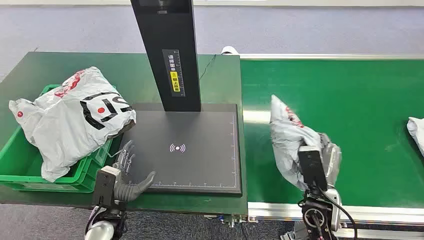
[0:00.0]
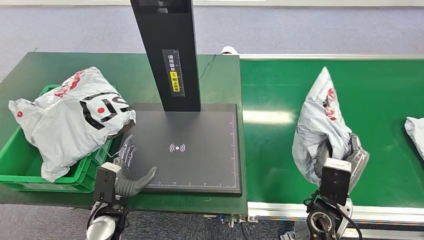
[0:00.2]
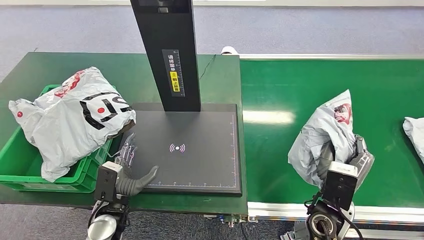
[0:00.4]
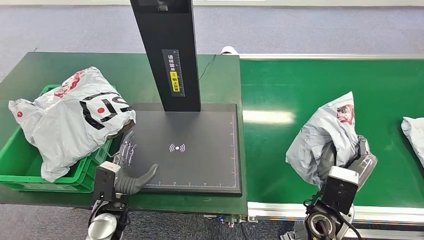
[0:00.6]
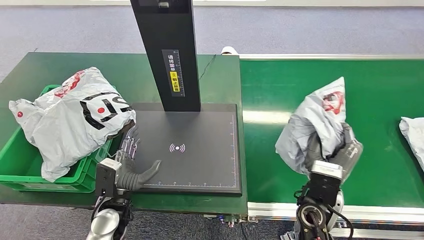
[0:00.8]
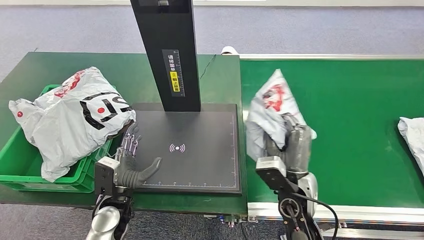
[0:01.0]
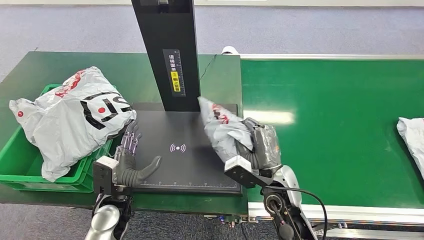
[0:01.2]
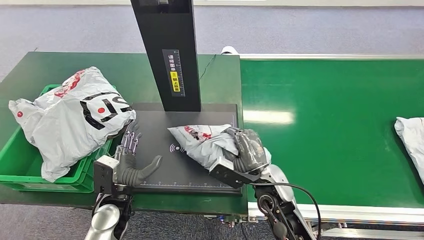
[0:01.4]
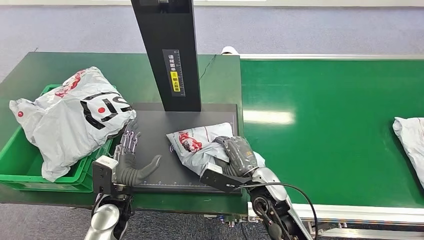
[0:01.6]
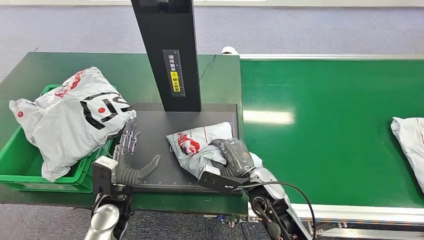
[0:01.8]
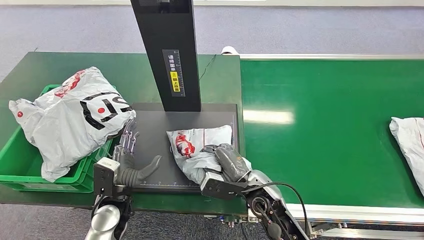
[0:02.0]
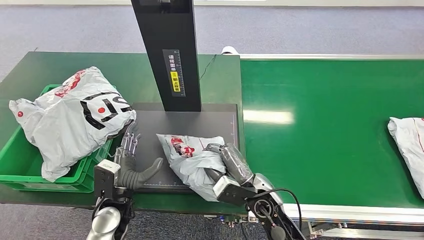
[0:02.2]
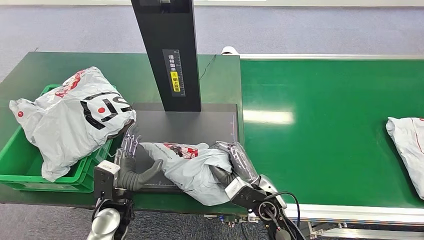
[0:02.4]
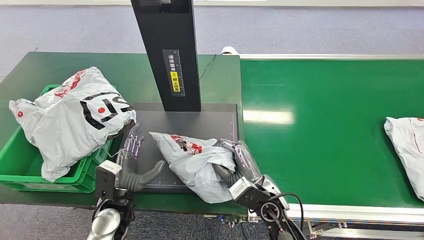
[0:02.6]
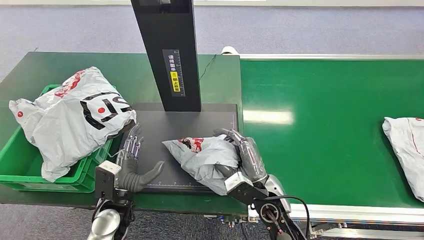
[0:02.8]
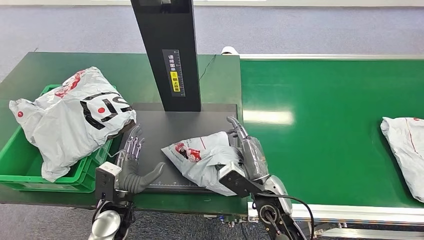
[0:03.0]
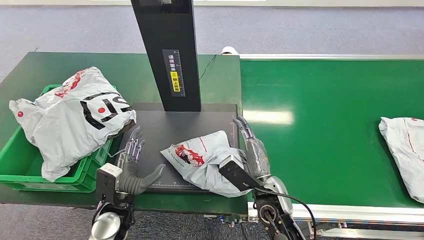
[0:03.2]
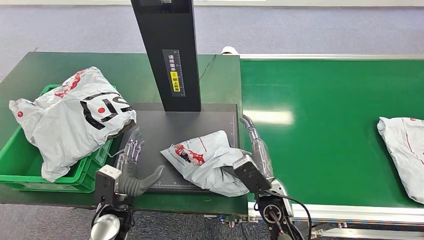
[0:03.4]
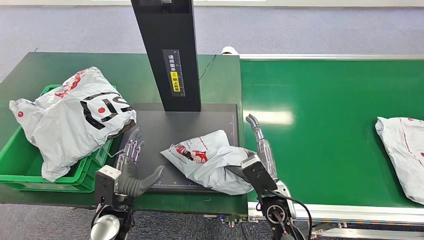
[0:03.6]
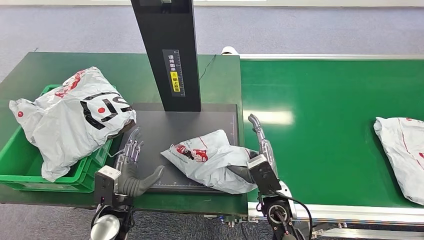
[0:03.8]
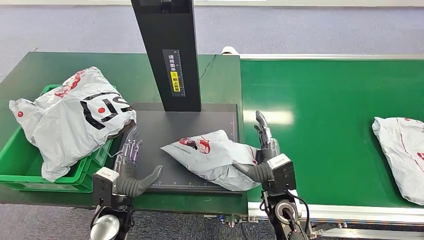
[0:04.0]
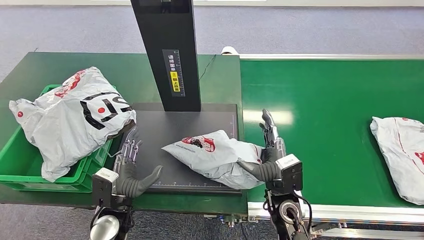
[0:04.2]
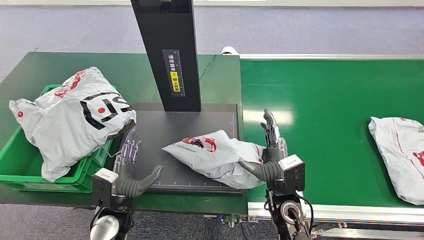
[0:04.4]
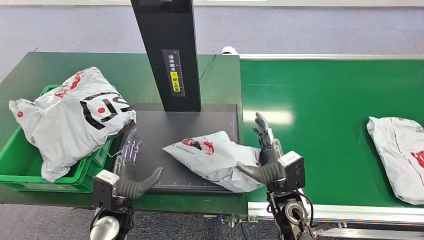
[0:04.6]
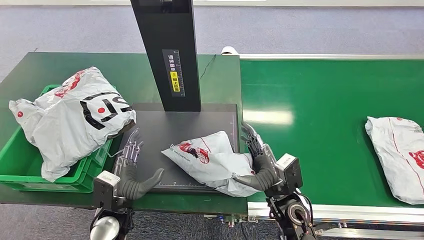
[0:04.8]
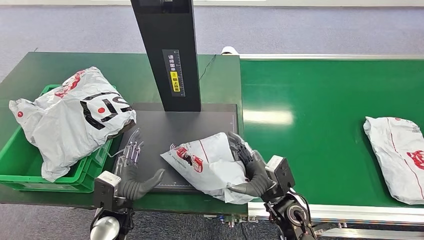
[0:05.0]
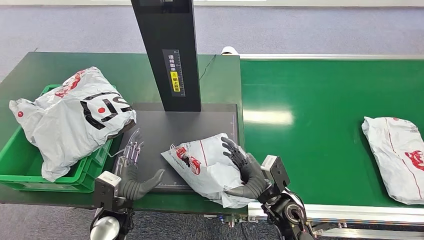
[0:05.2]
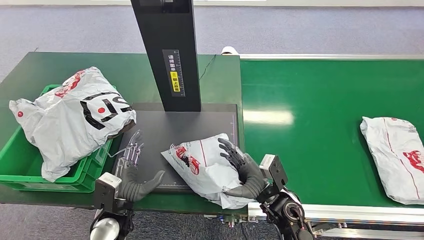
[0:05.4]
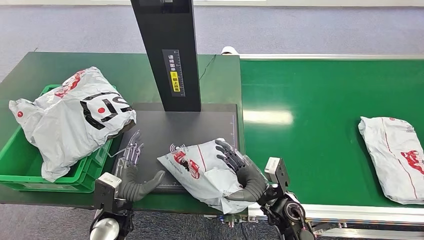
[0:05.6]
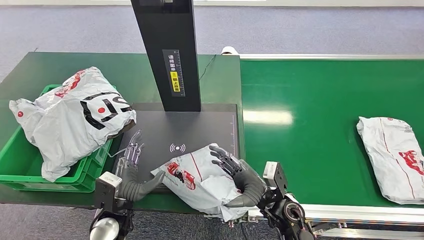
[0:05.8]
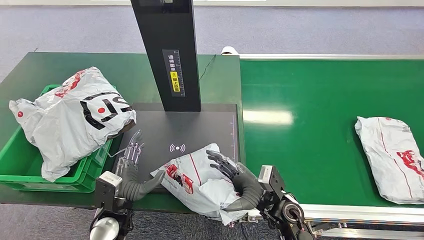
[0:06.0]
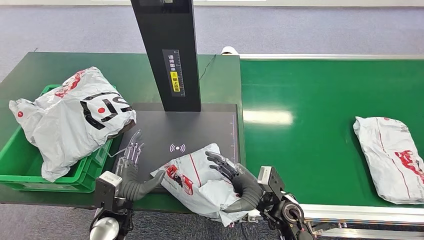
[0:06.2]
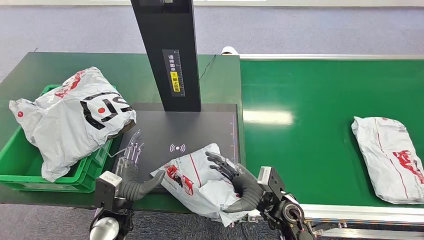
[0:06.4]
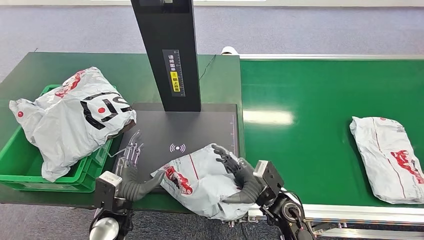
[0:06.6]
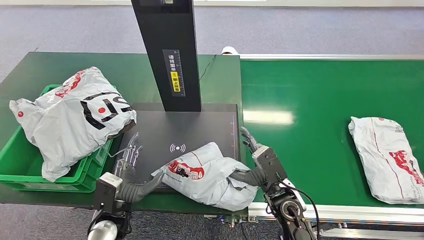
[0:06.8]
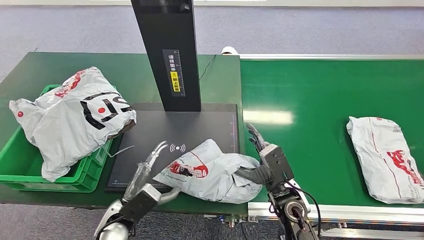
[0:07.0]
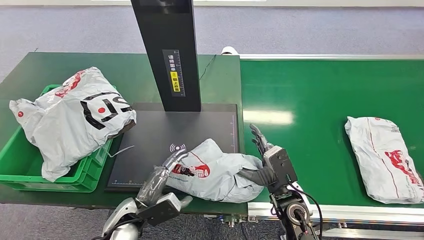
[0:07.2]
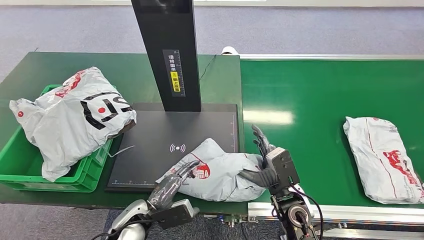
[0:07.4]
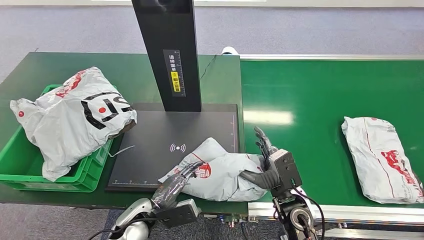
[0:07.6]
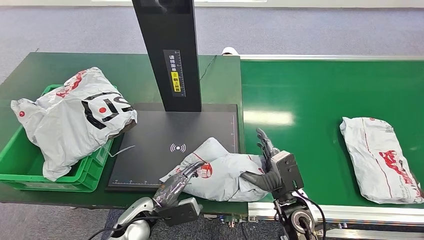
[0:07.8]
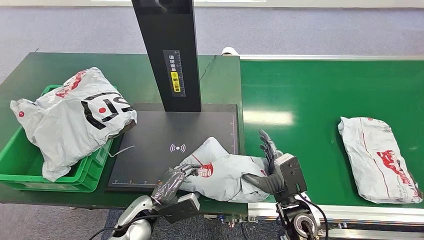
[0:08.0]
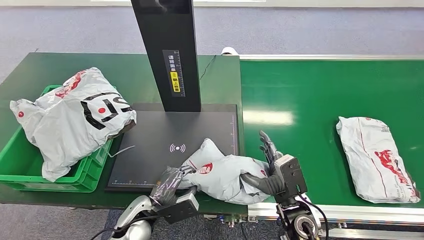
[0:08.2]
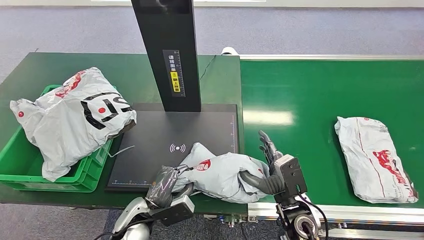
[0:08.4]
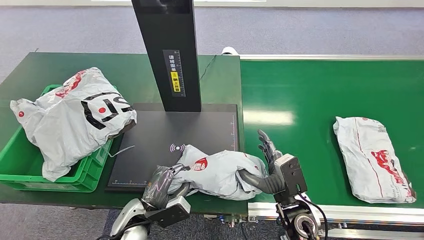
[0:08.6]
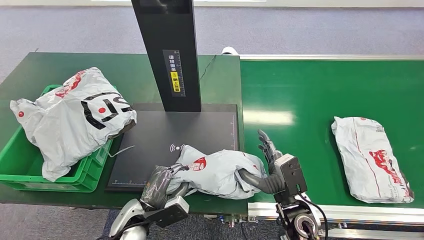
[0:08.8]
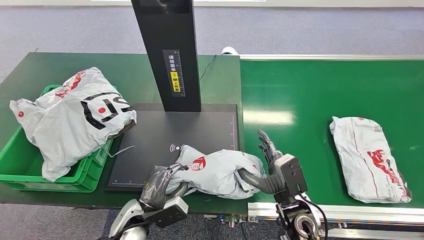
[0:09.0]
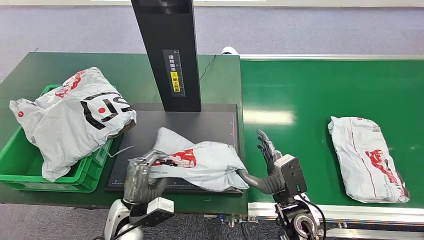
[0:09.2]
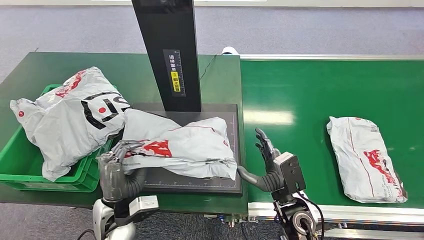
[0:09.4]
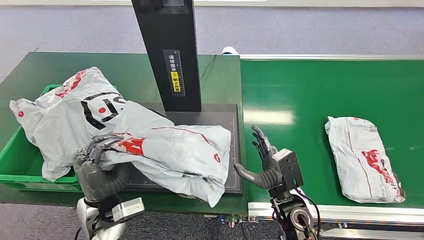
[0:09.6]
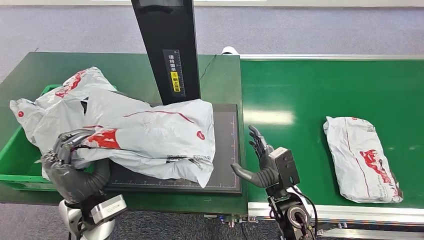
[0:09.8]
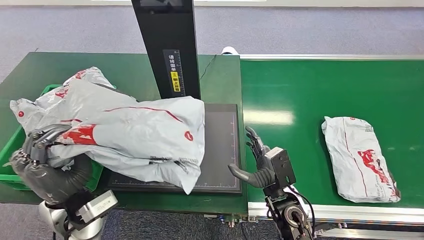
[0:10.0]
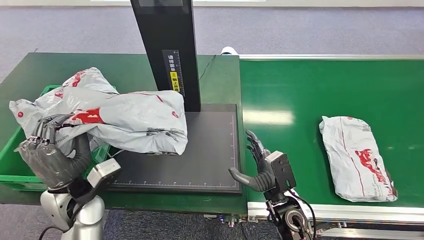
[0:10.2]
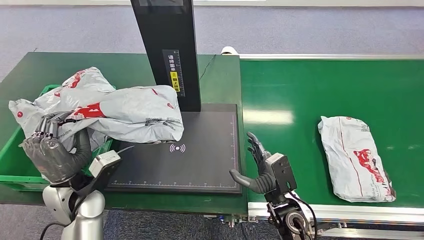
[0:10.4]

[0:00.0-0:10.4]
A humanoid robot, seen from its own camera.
Task of the whole recording: Weigh the package on the weighing device and place it in the left basket.
Step, 0:00.0 to 0:00.2: Pick up the package from the conveyor belt.
Step, 0:09.8 to 0:10.0: Pick up the package from the inbound machine.
0:07.4 to 0:09.0: The hands stay close to where they were, moving slightly.

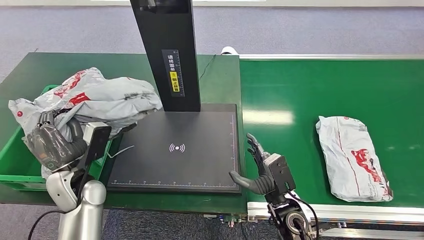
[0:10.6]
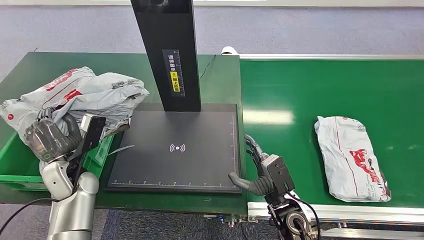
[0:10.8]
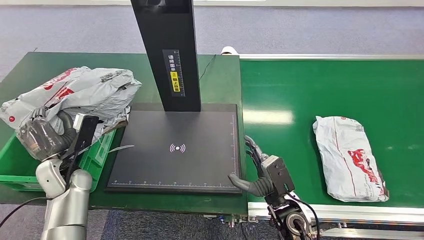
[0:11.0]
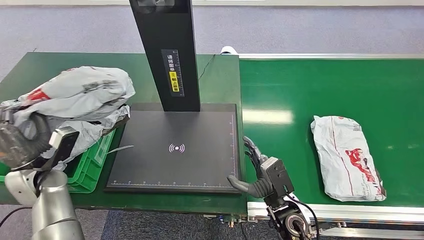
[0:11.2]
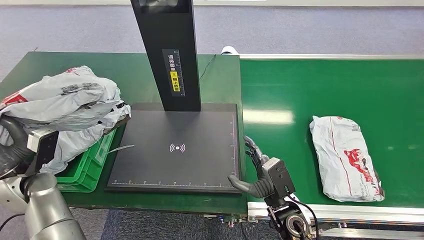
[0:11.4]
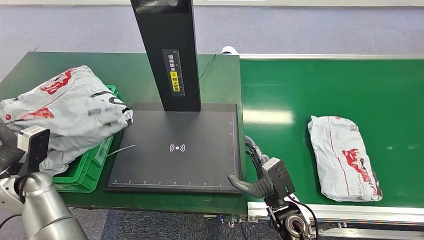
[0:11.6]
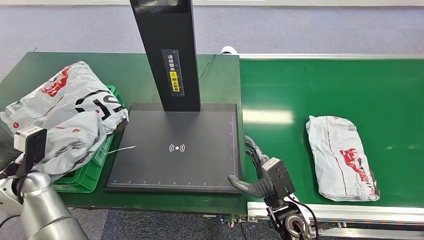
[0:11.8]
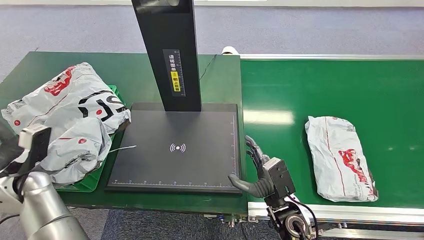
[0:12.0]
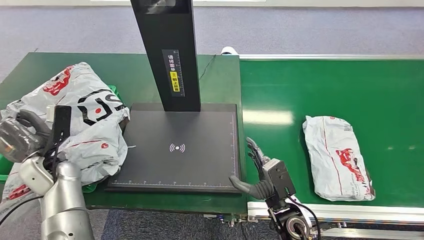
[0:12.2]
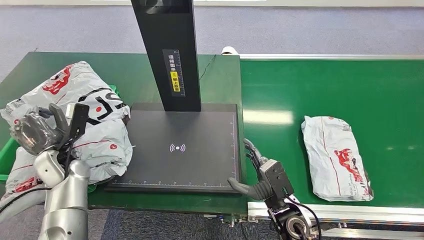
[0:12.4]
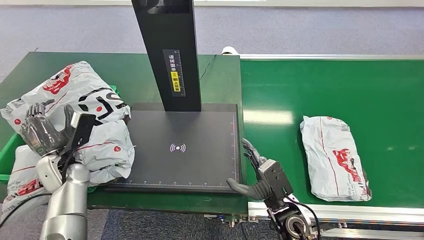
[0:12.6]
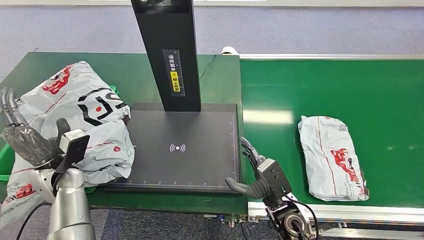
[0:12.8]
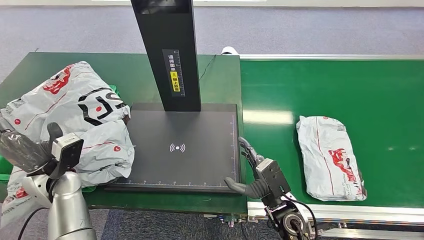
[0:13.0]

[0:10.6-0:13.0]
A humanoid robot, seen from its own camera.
Task of the whole recording: Weigh the package on the weighing device and place it in the left basket.
0:11.8 to 0:13.0: The left hand heads to the right, covering some 5 cm.
